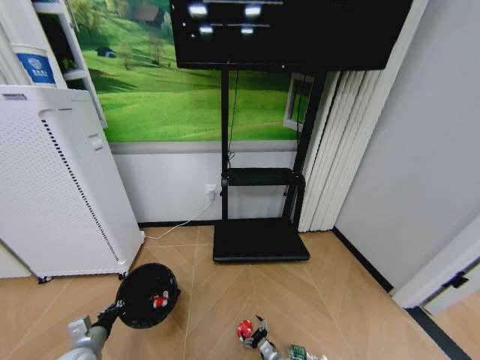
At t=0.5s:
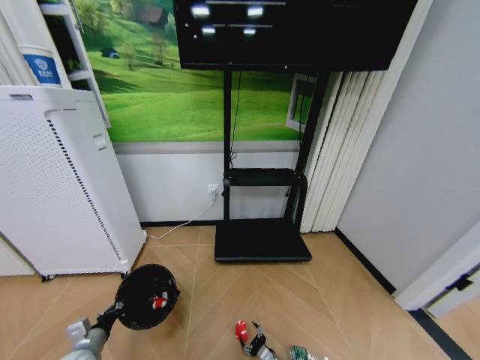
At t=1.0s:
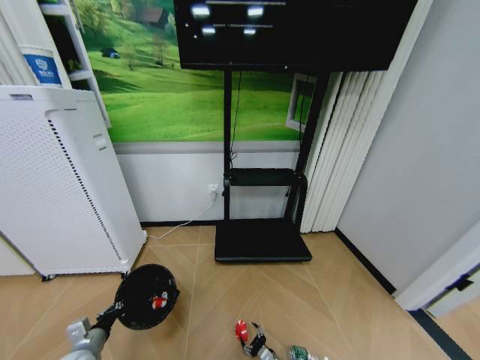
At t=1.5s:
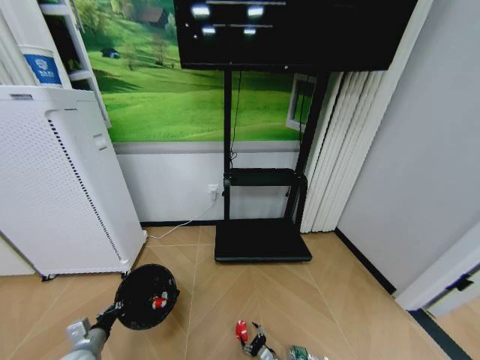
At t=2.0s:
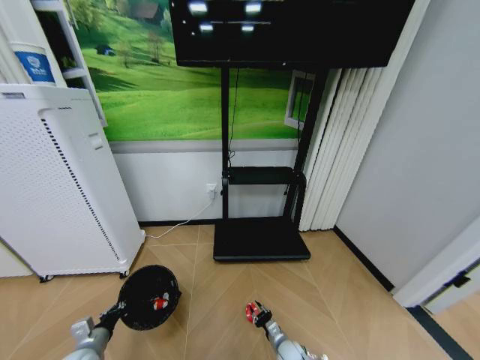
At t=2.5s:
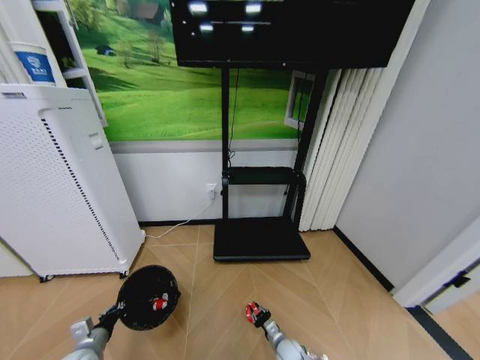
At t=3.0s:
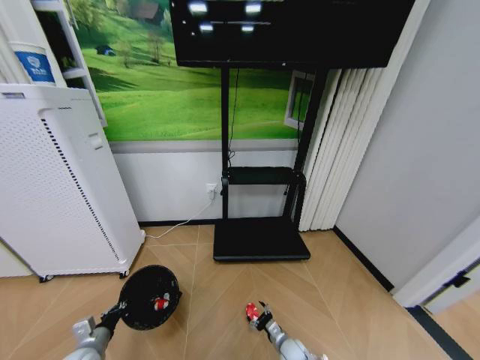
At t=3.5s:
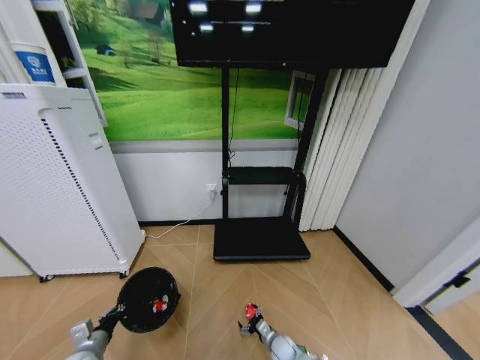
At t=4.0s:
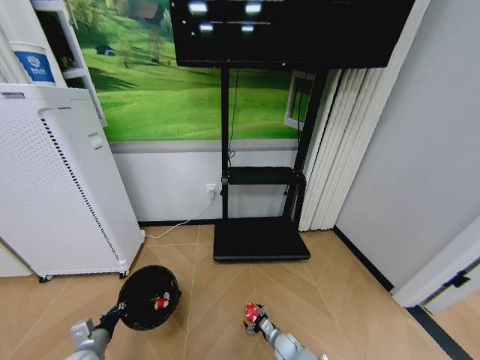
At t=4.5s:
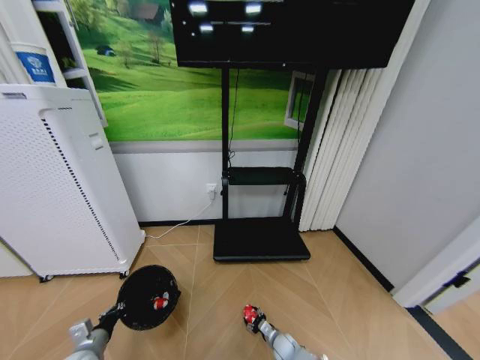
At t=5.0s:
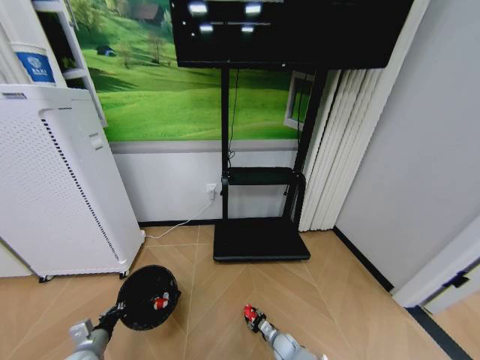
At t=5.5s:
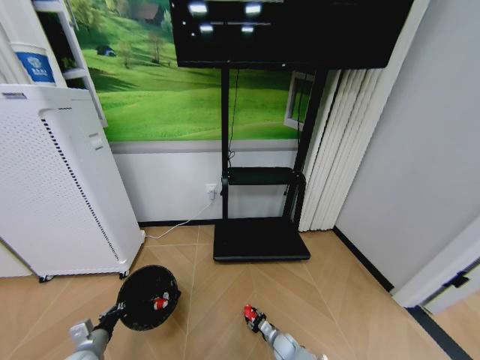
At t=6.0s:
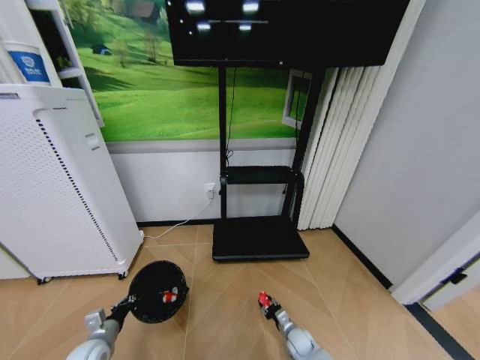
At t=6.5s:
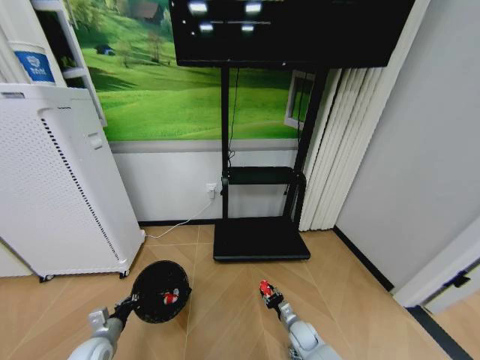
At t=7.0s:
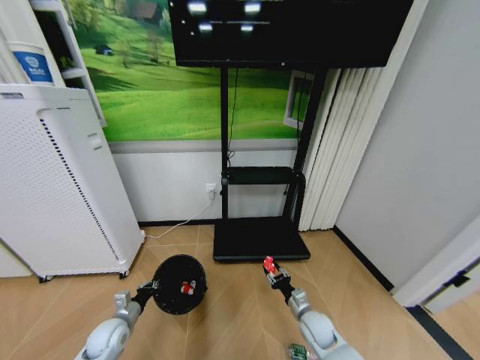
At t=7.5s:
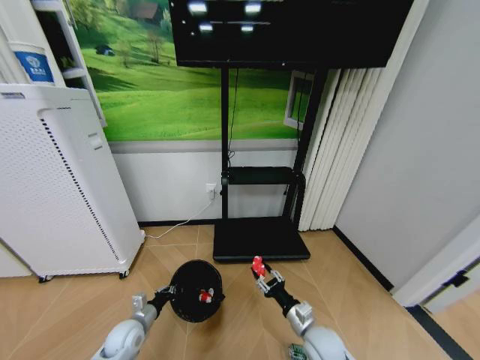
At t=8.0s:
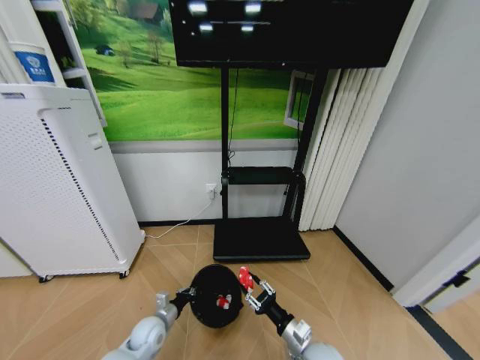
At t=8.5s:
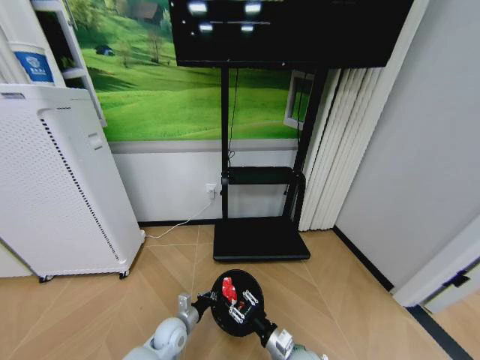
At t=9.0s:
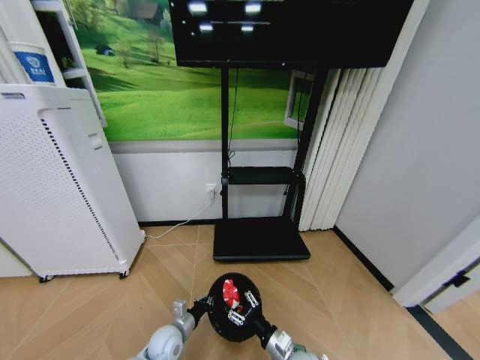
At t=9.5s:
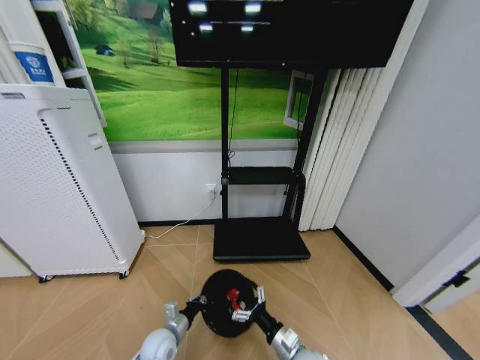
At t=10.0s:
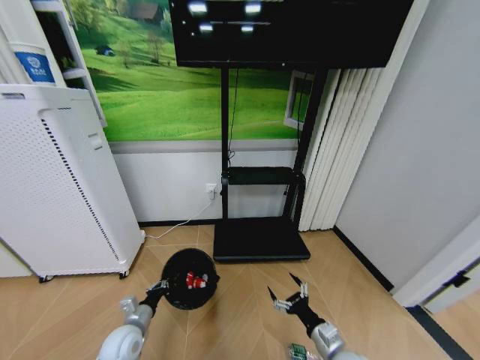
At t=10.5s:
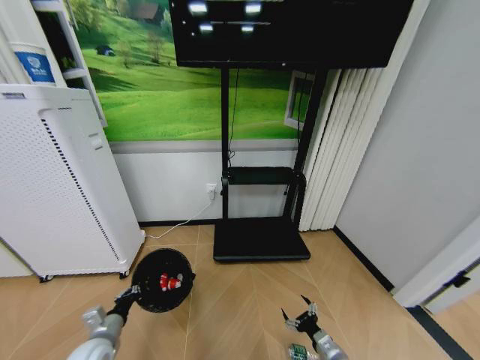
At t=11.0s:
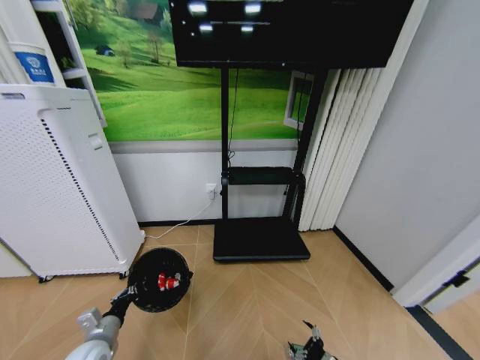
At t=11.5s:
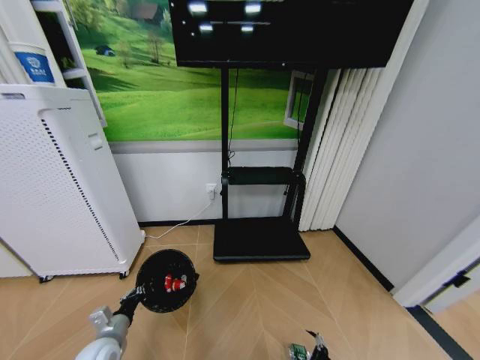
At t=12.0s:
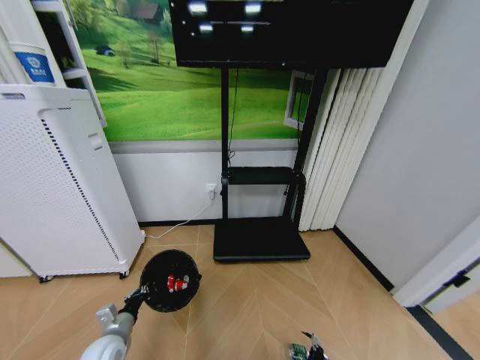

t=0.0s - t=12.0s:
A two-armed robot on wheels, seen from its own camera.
Task of the whole recording: Pick up the trash bin and place the garbage on the floor into it.
t=0.0s - t=2.0s: The right gripper changes place by about 5 cm, and closes.
t=2.0s - t=4.0s: The right gripper opens.
t=4.0s - t=6.0s: The right gripper changes place by some 5 cm, and closes.
t=6.0s - t=8.0s: The left gripper moves to the right and forward, some 15 cm. The right gripper travels upward and backward by some 25 cm.
t=8.0s - t=10.0s: The left gripper goes some 5 cm upward; the right gripper is displaced to the right by approximately 5 cm, and opens up.
t=10.0s - t=12.0s: The right gripper heads downward and to the right, covering roughly 20 cm.

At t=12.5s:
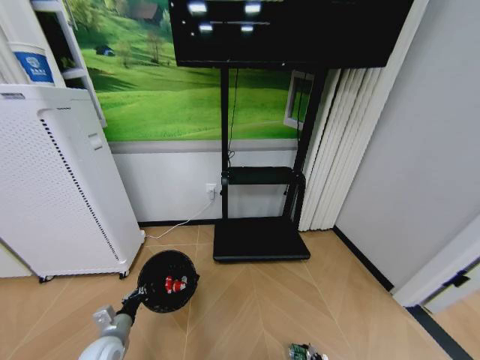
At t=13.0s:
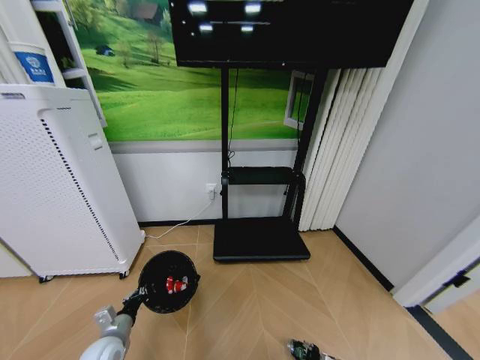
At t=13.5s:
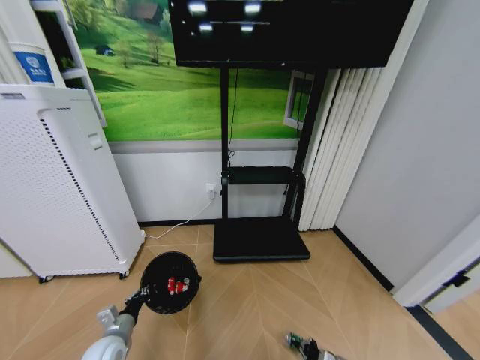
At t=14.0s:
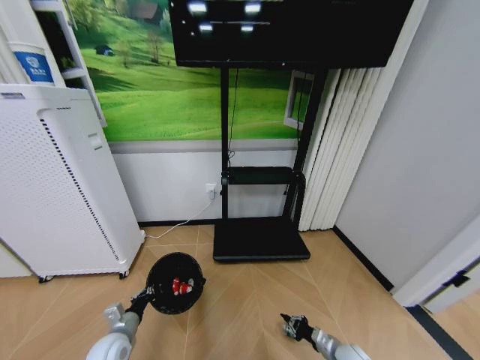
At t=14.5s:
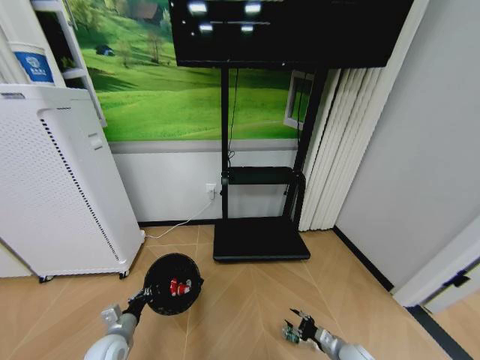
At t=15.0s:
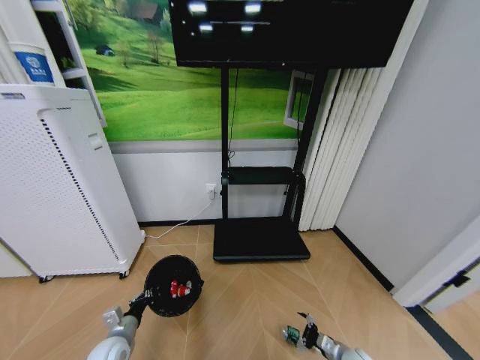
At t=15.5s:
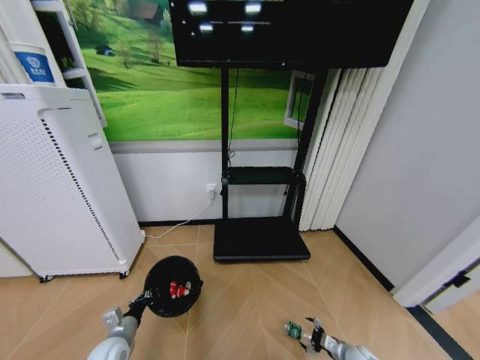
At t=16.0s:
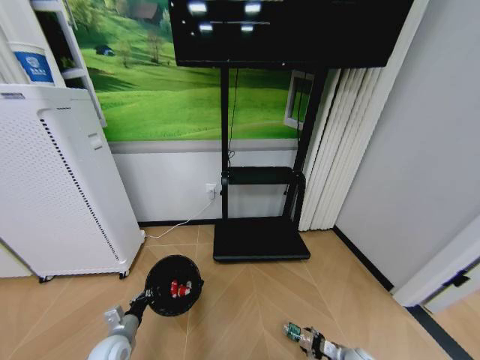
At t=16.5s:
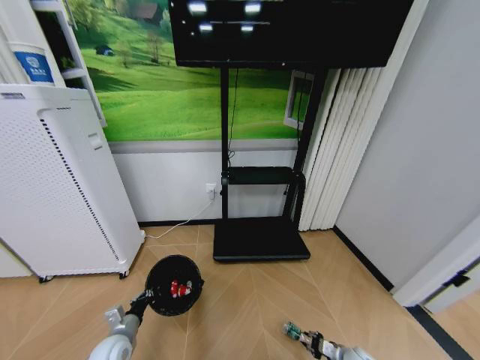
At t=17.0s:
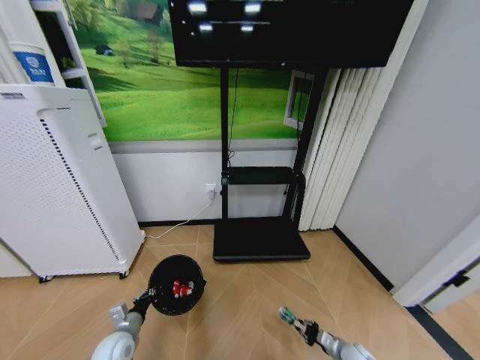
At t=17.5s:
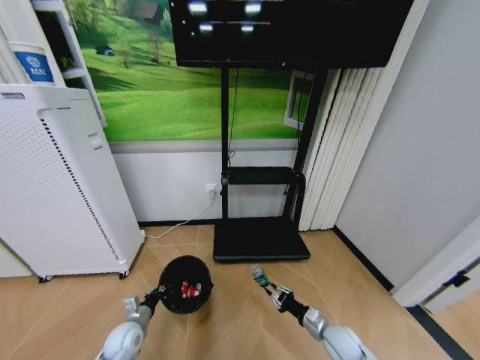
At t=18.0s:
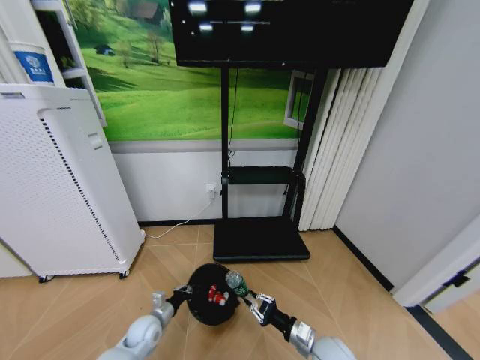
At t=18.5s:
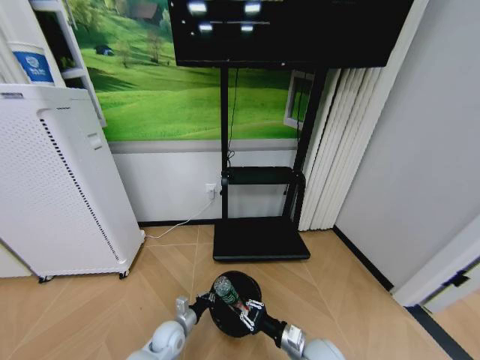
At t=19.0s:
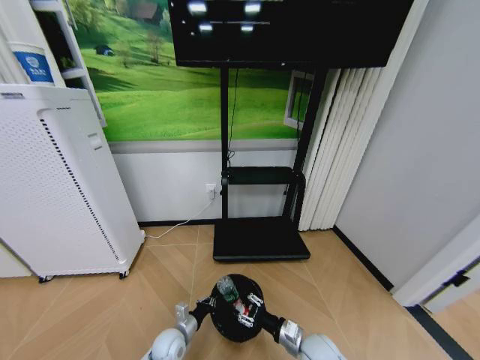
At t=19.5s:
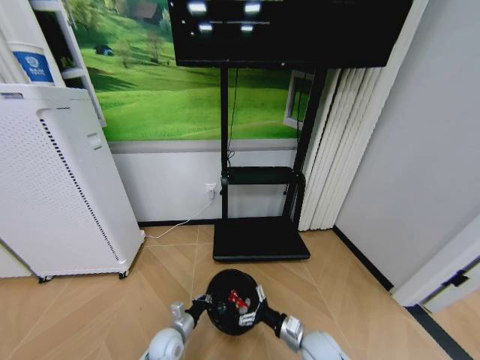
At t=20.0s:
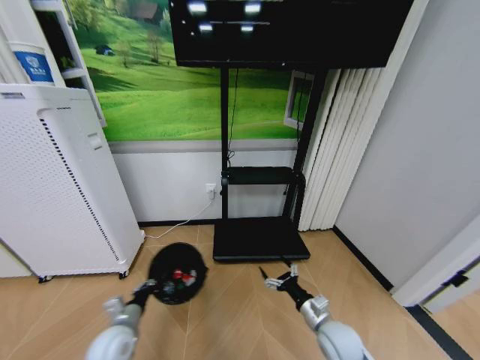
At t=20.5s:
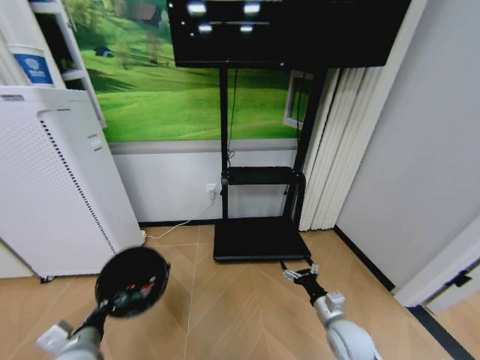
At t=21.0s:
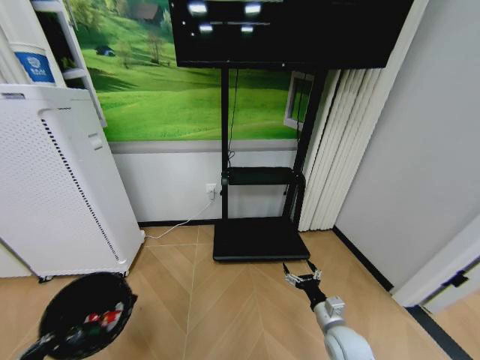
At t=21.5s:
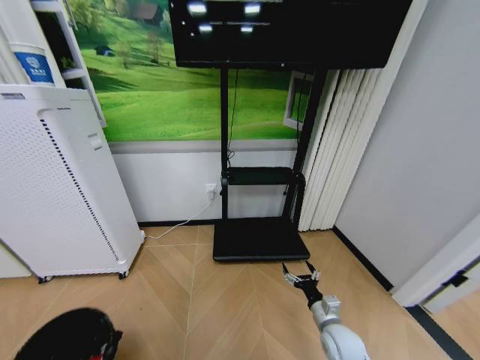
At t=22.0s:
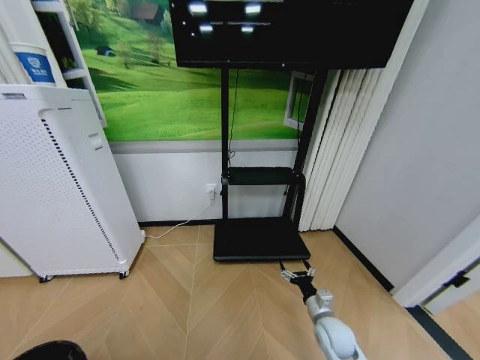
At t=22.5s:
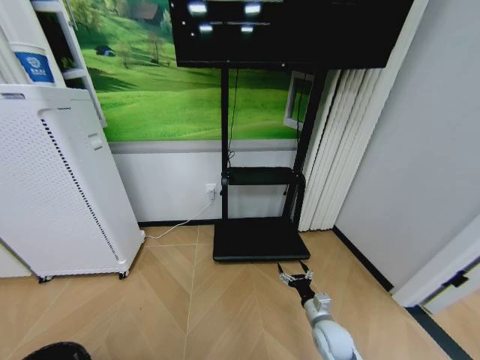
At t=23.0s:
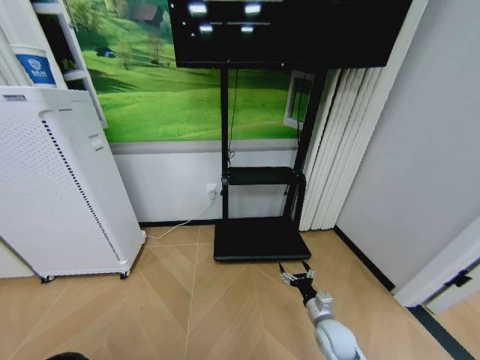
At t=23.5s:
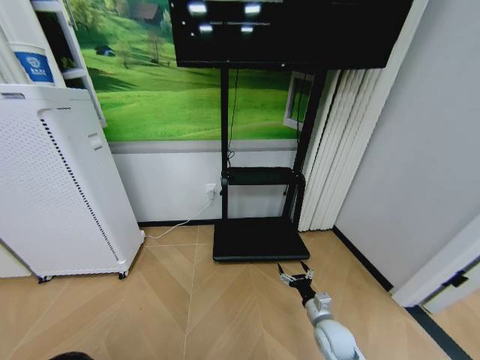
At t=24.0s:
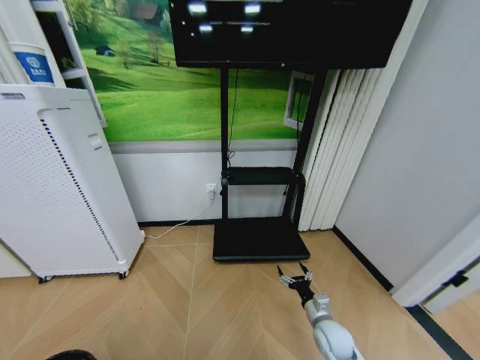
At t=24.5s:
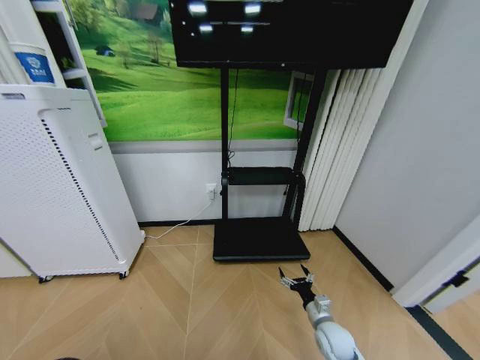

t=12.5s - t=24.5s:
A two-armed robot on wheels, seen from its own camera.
Task of the whole recording: Pick up the trash bin and place the garbage on the floor into it.
t=12.5s - t=14.5s: The right gripper heads forward and upward, covering approximately 10 cm, and closes.
t=14.5s - t=16.5s: The right gripper goes about 5 cm downward, and opens, then closes again.
t=16.5s - t=18.5s: The right gripper moves to the left and upward, some 25 cm, while the left gripper moves to the right, downward and forward, about 15 cm.
t=18.5s - t=20.5s: The right gripper shifts some 5 cm to the right, and opens. Meanwhile the left gripper moves upward, to the left and backward, approximately 25 cm.
t=20.5s - t=22.5s: The right gripper goes roughly 5 cm downward, while the left gripper goes some 25 cm backward and to the left.
t=22.5s - t=24.5s: The left gripper changes place by approximately 5 cm.

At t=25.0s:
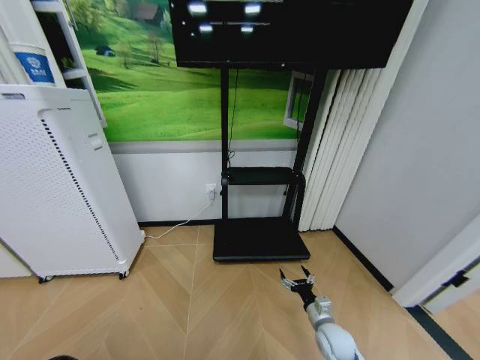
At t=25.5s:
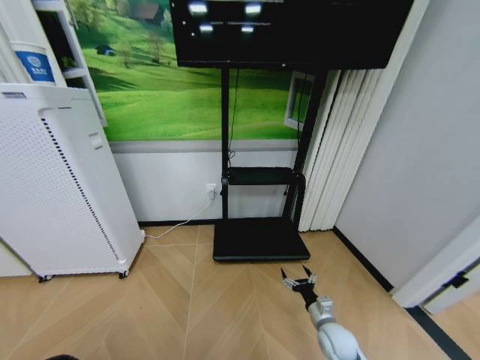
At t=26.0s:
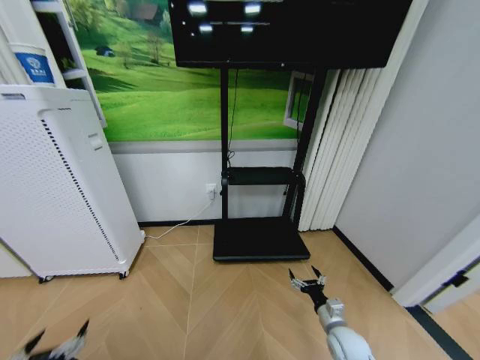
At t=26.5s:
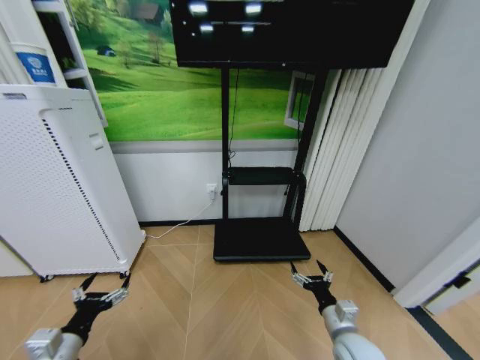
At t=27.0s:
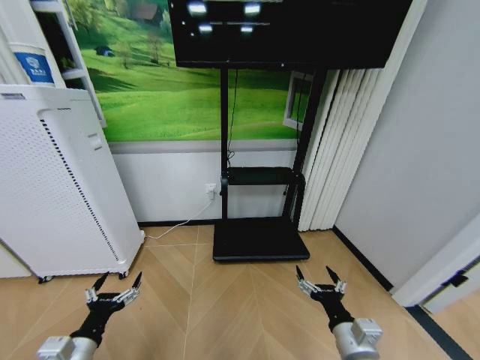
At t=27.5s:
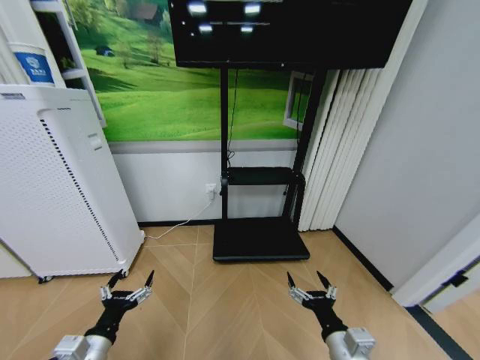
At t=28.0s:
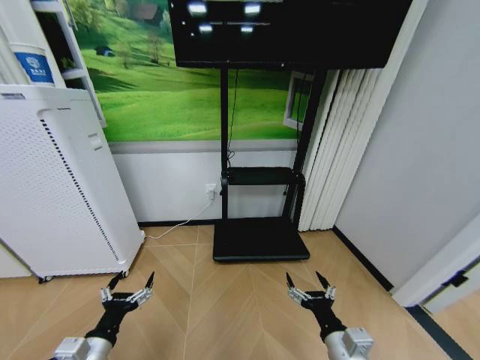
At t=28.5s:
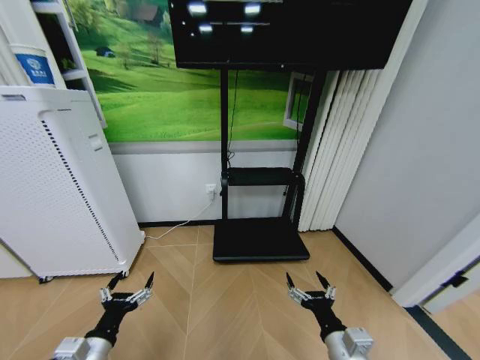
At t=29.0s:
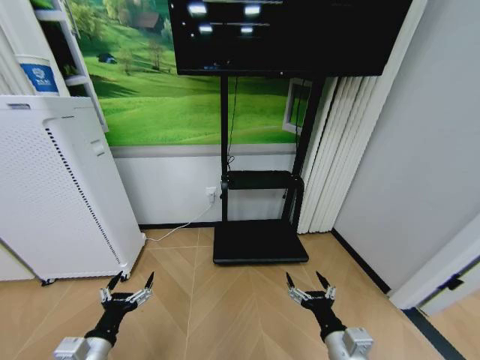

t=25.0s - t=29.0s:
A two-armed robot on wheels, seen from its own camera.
Task of the whole recording: Pick up the trash bin and place the garbage on the floor into it.
t=25.0s - t=27.0s: The left gripper shifts about 25 cm forward, to the right and upward, and opens; the right gripper is displaced upward and backward by about 20 cm.
t=27.0s - t=29.0s: The grippers make only small movements.
